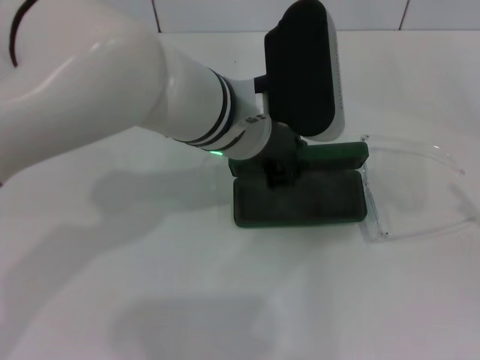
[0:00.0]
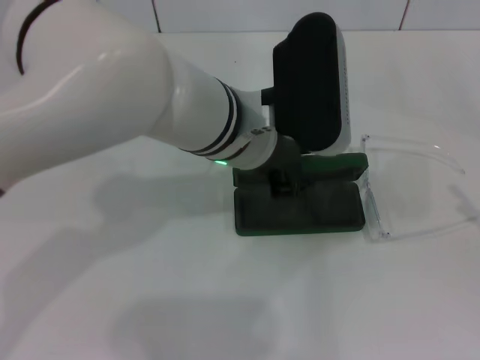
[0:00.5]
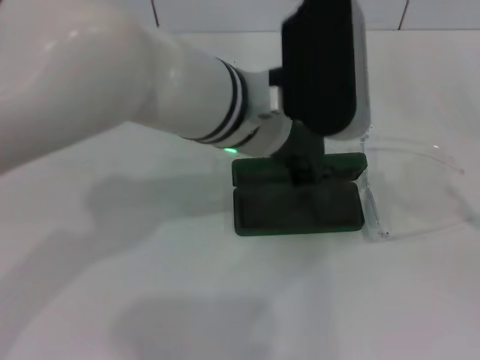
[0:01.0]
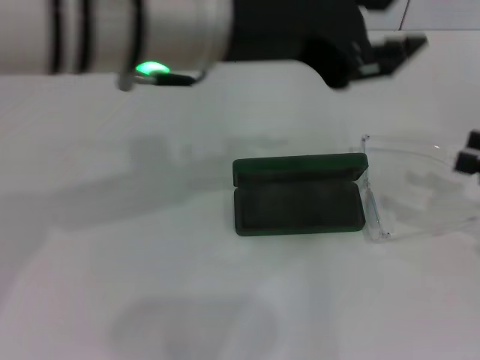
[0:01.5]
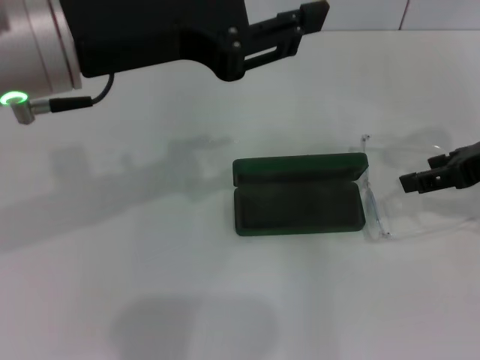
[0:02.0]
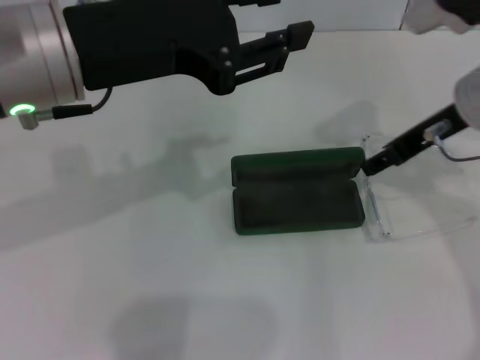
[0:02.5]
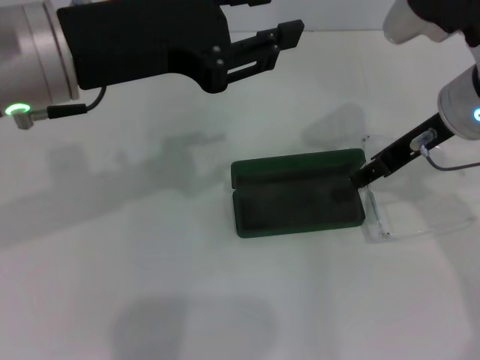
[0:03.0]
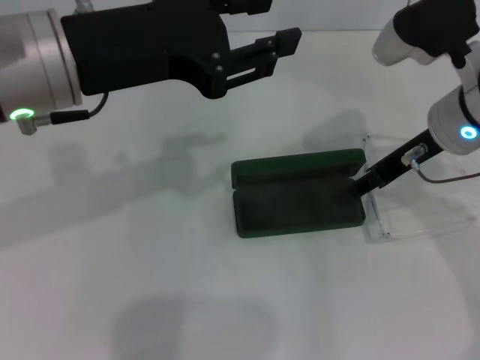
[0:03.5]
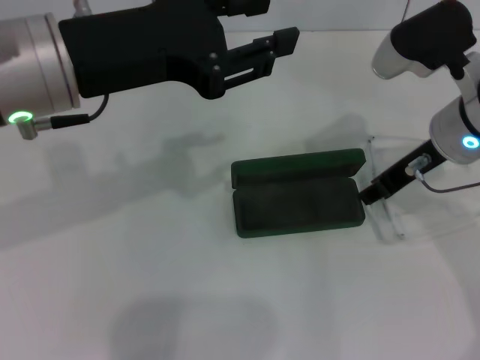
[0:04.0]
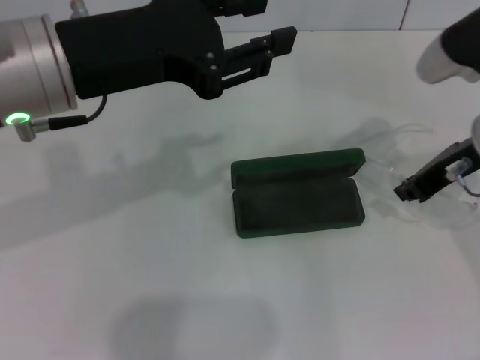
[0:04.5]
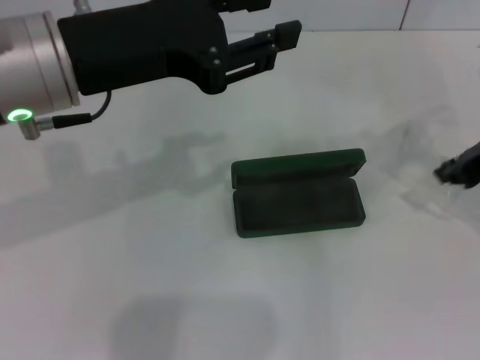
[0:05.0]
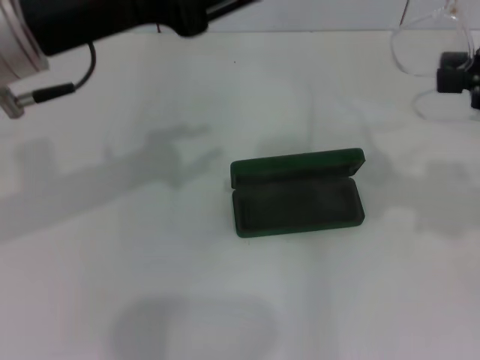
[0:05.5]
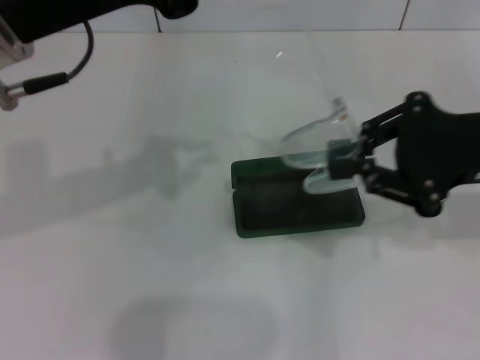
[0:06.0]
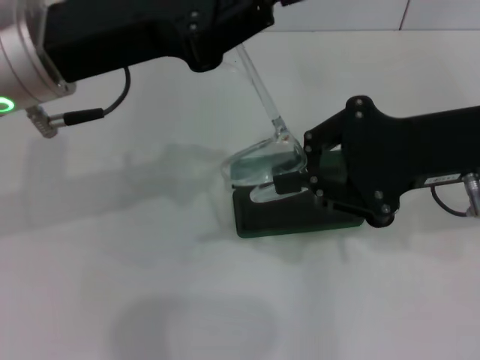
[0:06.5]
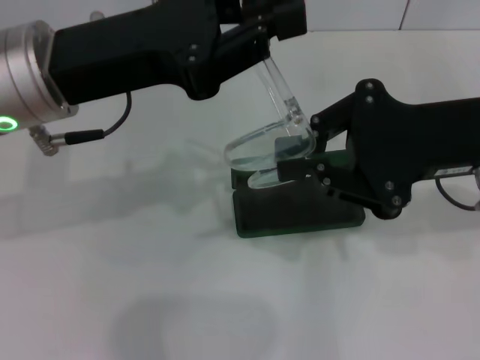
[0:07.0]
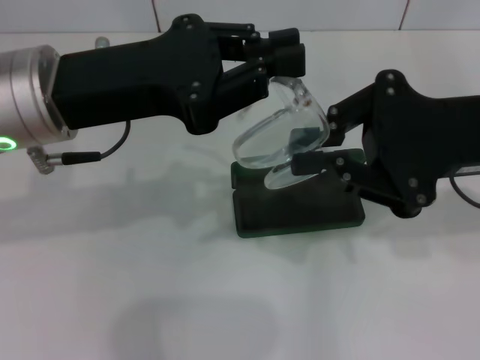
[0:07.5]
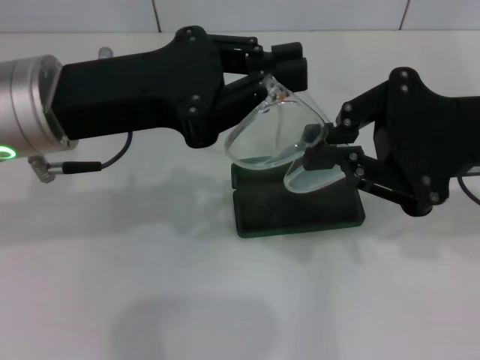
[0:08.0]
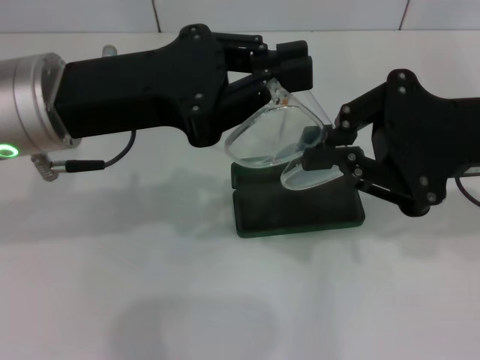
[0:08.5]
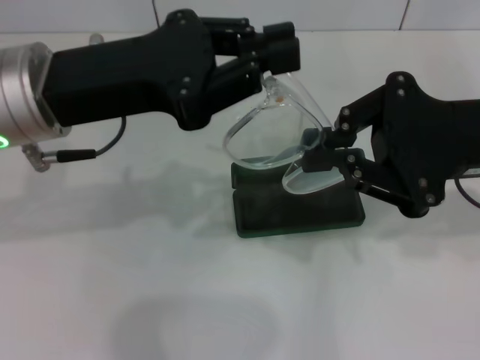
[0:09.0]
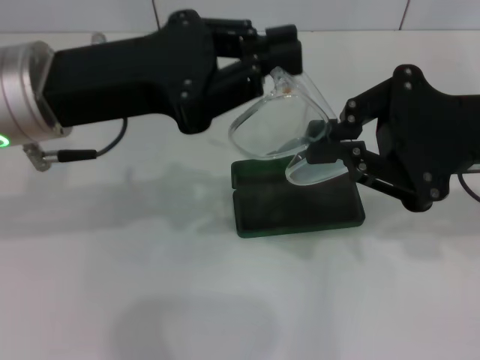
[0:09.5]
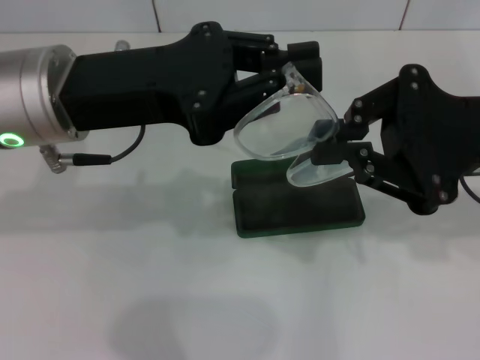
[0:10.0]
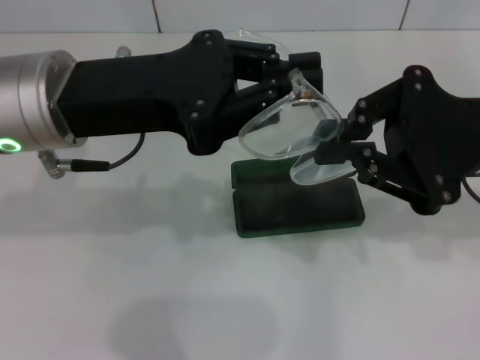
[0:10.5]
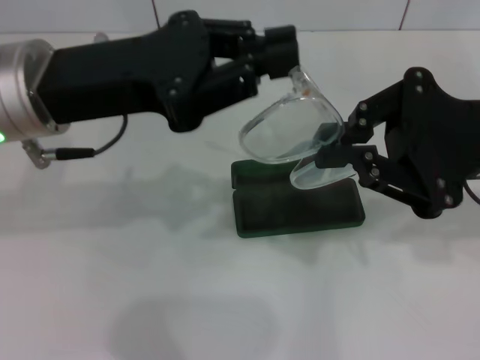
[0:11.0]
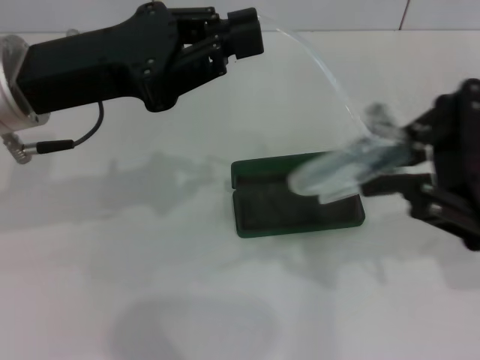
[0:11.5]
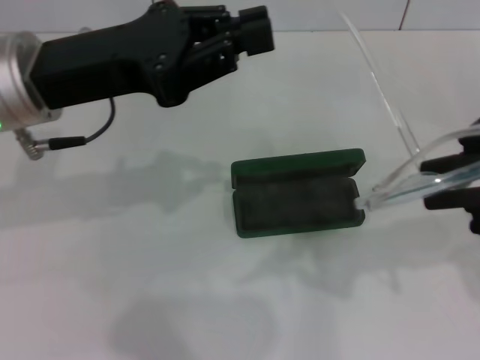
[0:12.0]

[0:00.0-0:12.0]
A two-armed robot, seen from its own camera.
Step, 0:01.0 to 0:04.0: Grab the eyeglass frame with your right hand.
0:00.0 to 0:02.0: The right gripper is displaced forward, to the left and upward by approximately 20 cm. The left gripper shifts some 15 cm to the left, upward and backward, and opens its fingers.
0:02.0 to 0:04.0: The right gripper travels to the left by some 10 cm.
0:04.0 to 0:06.0: The right gripper shifts about 10 cm backward and to the right, and closes.
0:06.0 to 0:08.0: The left gripper is displaced downward by approximately 5 cm.
0:08.0 to 0:10.0: The grippers move only a little.

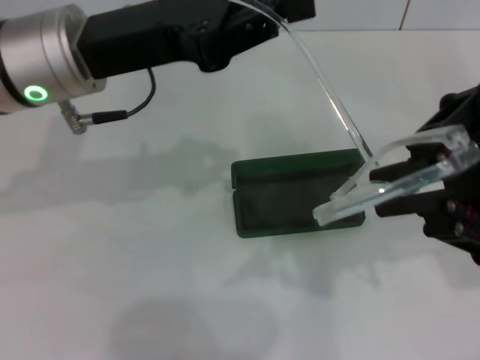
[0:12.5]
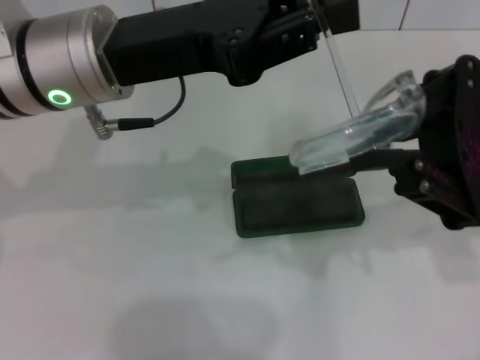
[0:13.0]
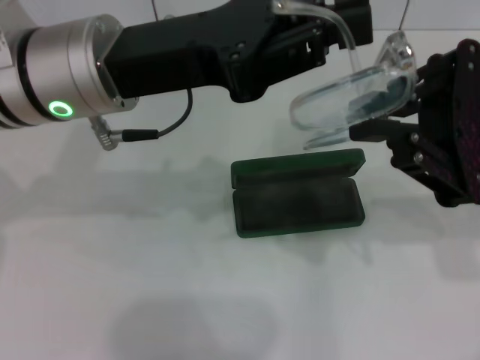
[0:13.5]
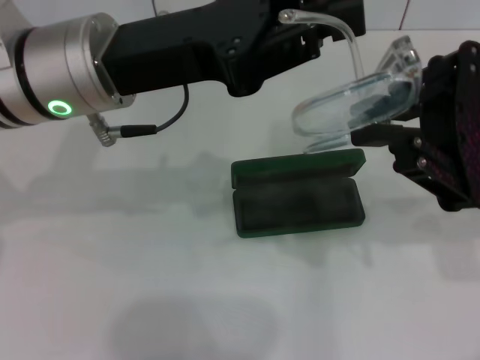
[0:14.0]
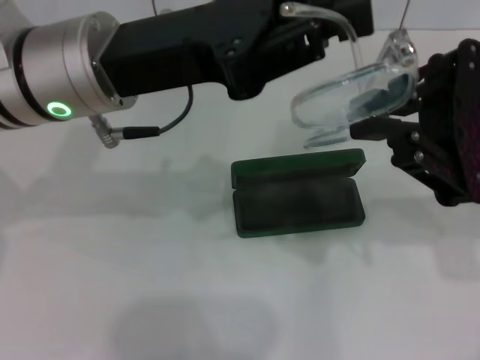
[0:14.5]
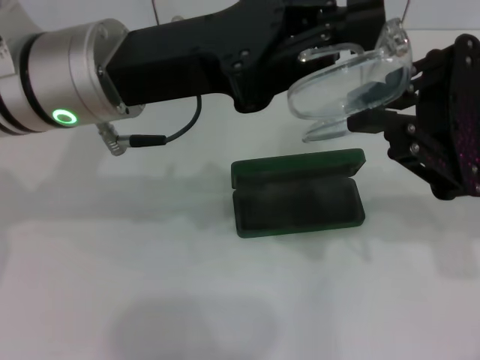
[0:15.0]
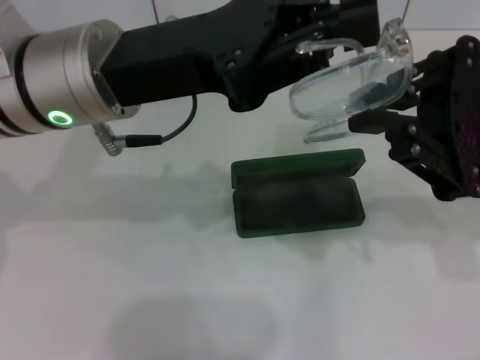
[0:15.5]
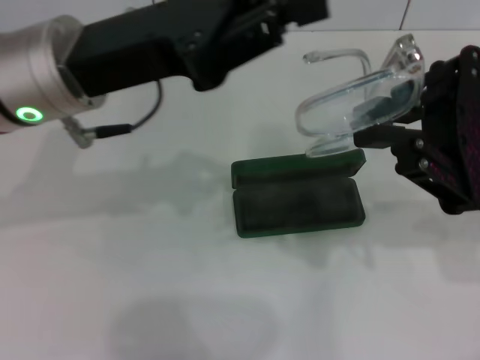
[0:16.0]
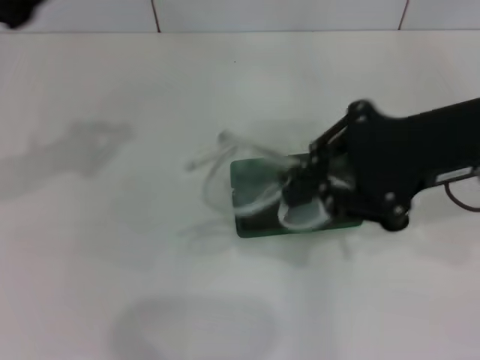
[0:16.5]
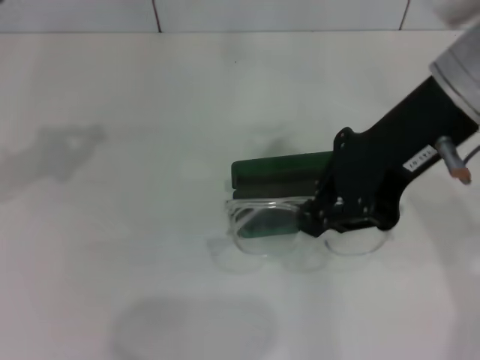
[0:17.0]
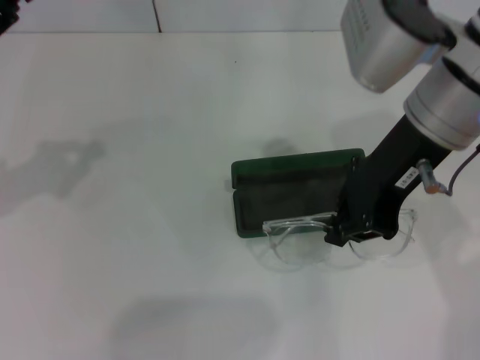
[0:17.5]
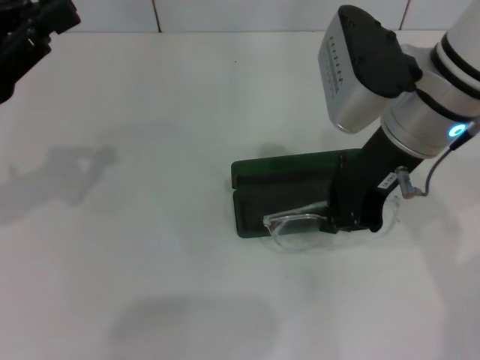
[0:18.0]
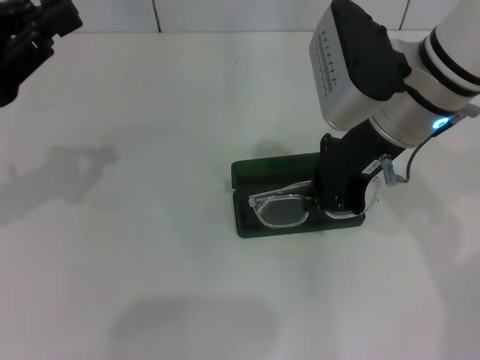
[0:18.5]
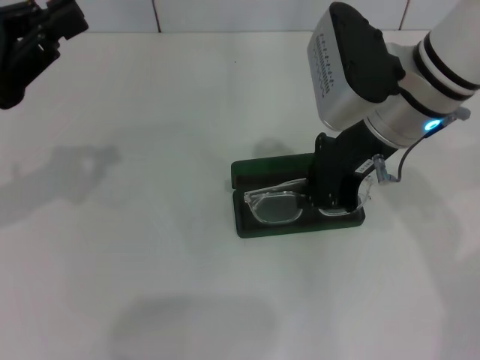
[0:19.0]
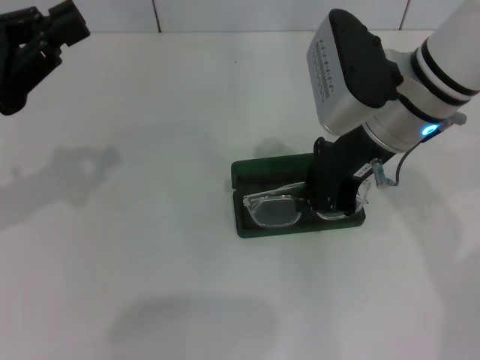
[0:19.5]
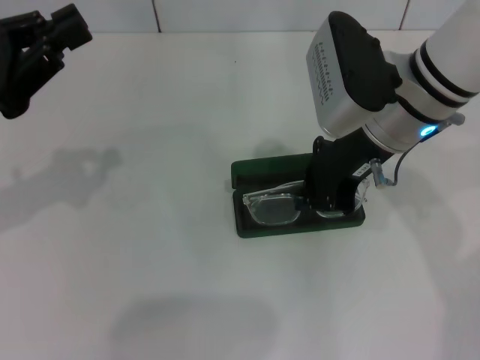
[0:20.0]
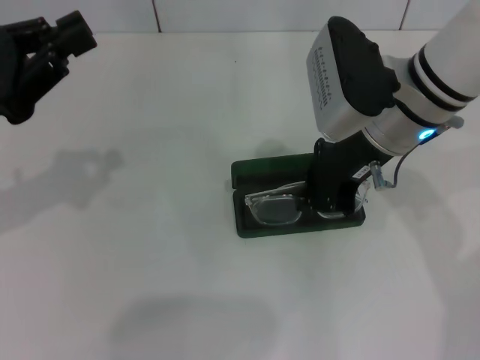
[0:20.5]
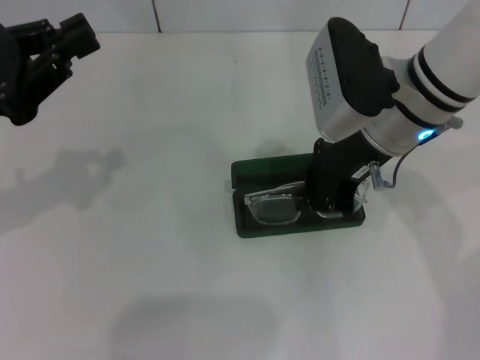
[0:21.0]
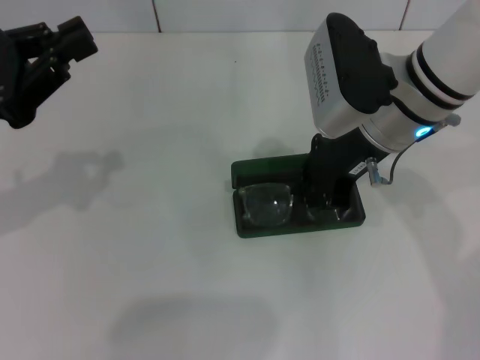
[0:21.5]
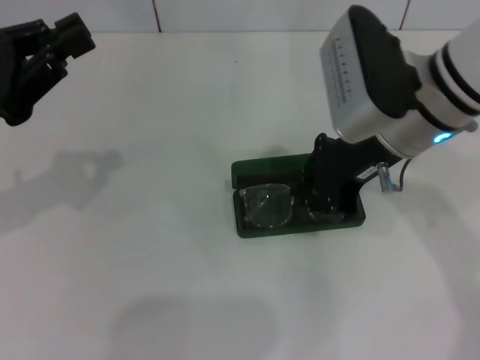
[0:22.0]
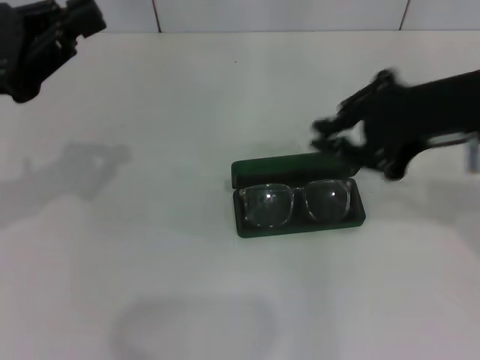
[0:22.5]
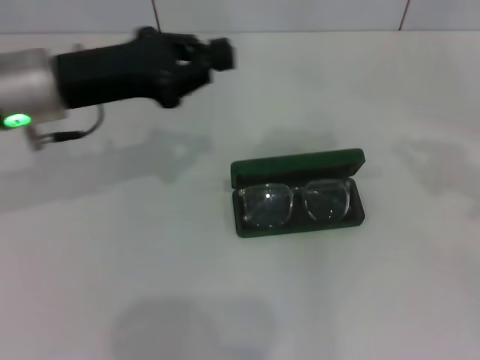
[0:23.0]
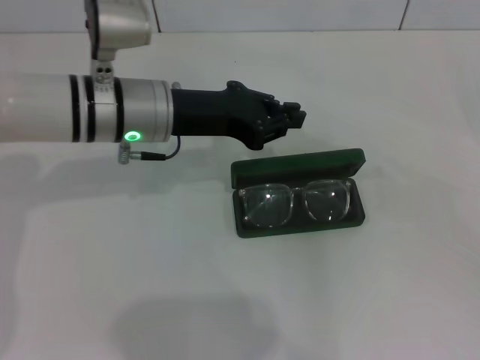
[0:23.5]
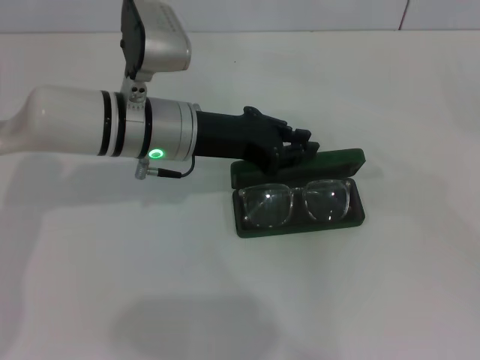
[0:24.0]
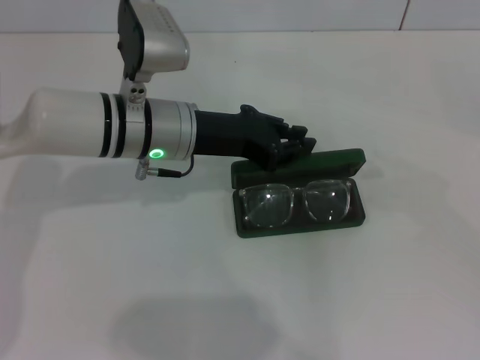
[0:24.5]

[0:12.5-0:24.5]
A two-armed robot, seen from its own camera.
Step, 0:13.5 to 0:21.0: Put the glasses into the case with your right hand.
0:14.5 to 0:16.5: The left gripper is displaced to the left by approximately 15 cm.
0:16.5 to 0:18.5: The left gripper ends up about 5 cm from where it was; the right gripper goes approximately 10 cm to the left and forward.
0:18.5 to 0:20.5: The grippers make only small movements.
0:20.5 to 0:22.5: The right gripper moves to the right, backward and upward, roughly 15 cm.
0:22.5 to 0:24.5: The right gripper travels to the right and downward by about 25 cm; the left gripper moves to the right, forward and downward, about 20 cm.

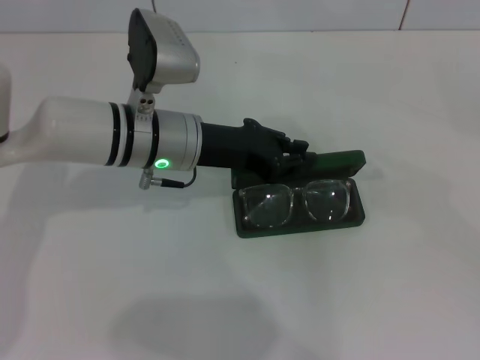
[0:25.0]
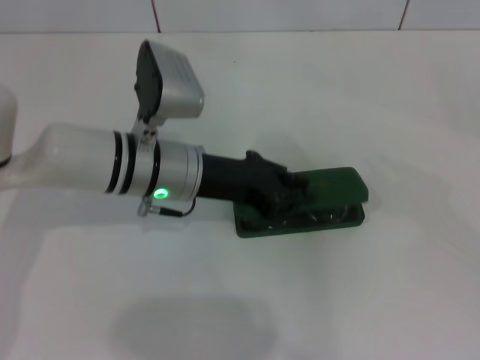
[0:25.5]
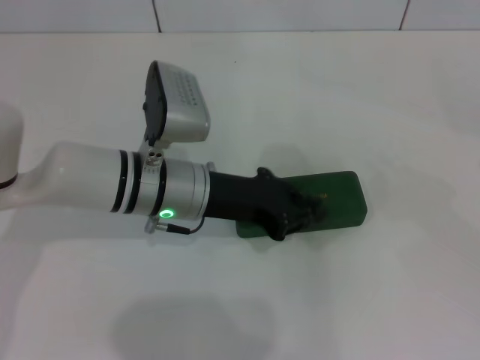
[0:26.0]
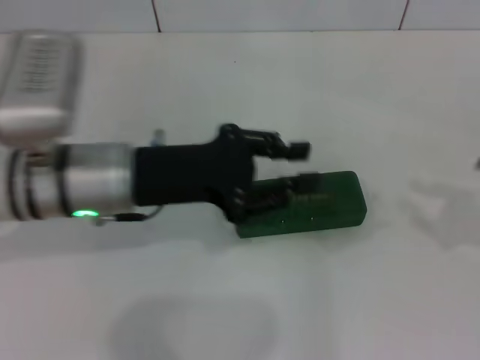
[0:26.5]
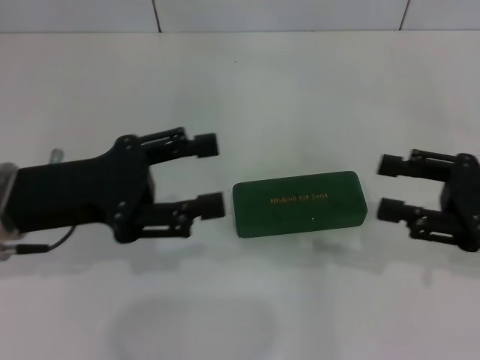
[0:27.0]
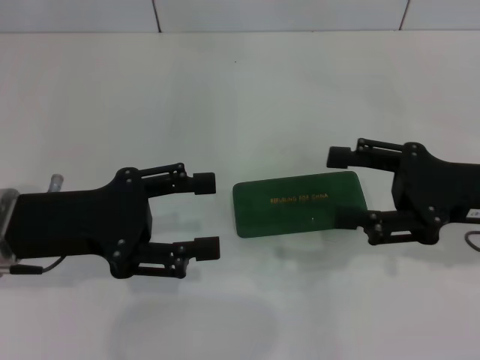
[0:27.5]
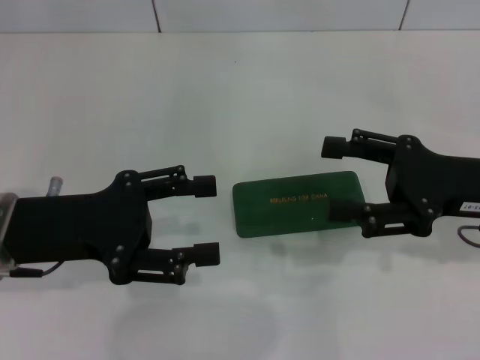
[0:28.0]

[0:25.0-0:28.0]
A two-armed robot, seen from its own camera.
0:25.0 to 0:26.5: The left gripper shifts some 5 cm backward; the right gripper shifts about 5 cm to the left.
0:26.5 to 0:28.0: The grippers both shift to the left by about 10 cm. The right gripper opens. Meanwhile the left gripper opens.
